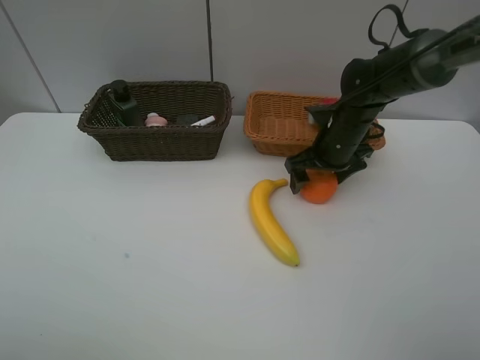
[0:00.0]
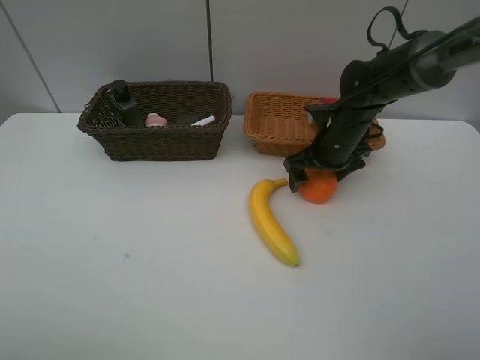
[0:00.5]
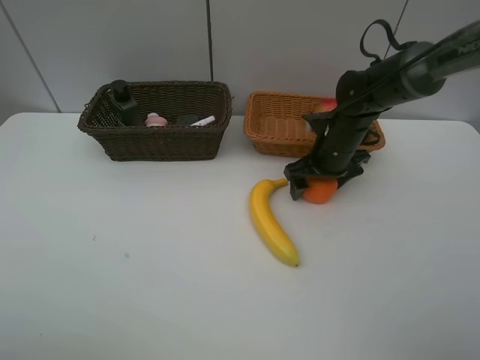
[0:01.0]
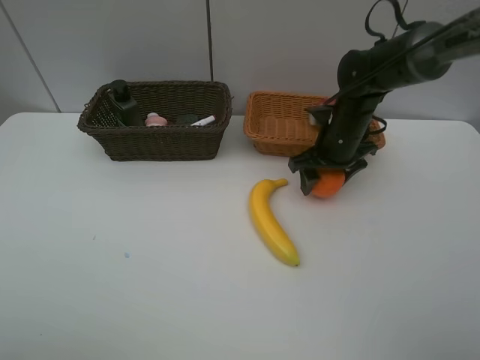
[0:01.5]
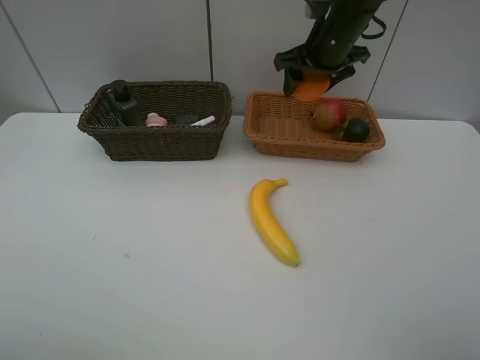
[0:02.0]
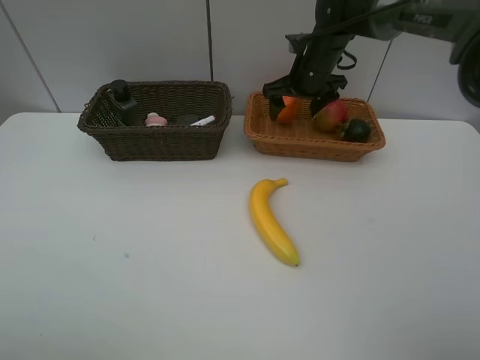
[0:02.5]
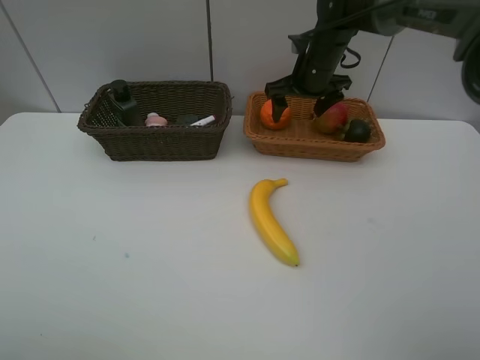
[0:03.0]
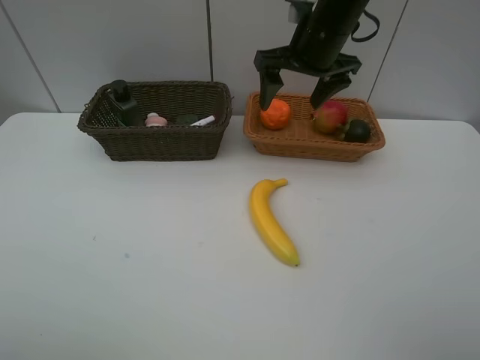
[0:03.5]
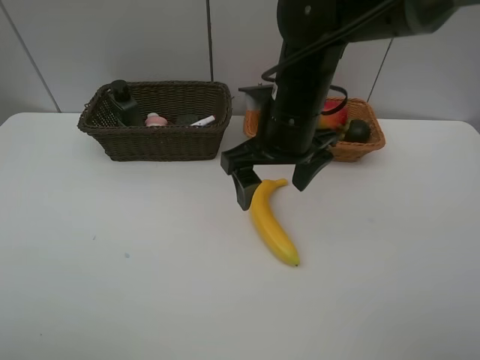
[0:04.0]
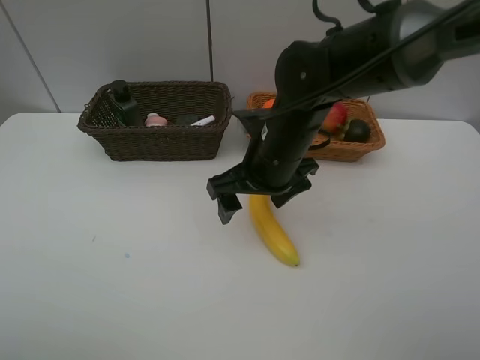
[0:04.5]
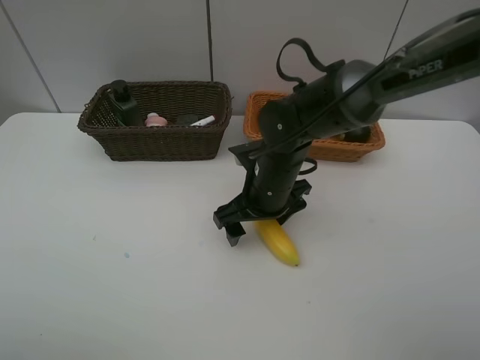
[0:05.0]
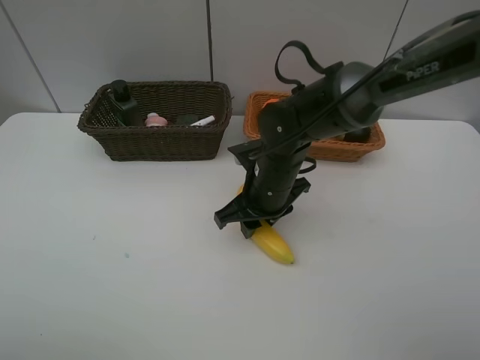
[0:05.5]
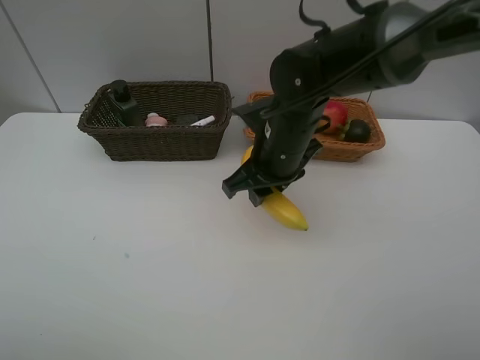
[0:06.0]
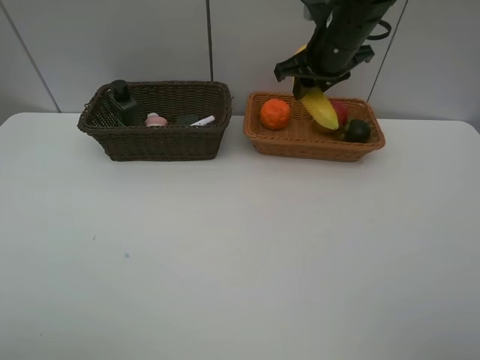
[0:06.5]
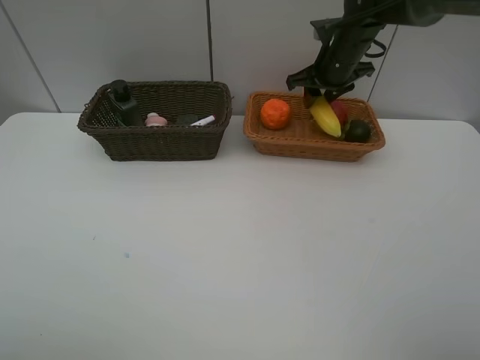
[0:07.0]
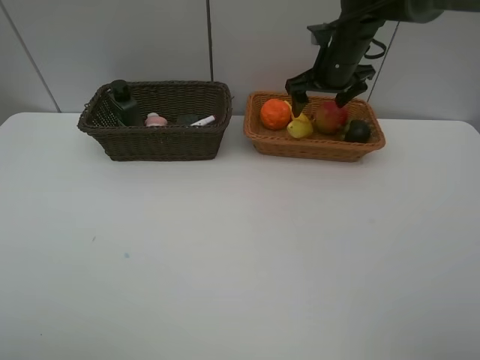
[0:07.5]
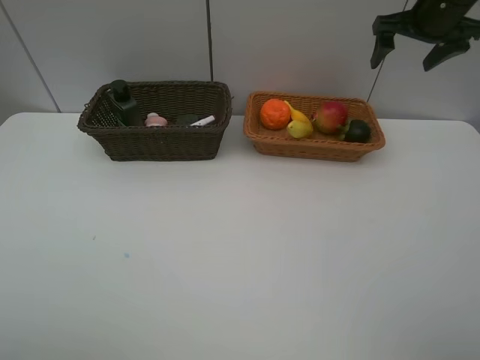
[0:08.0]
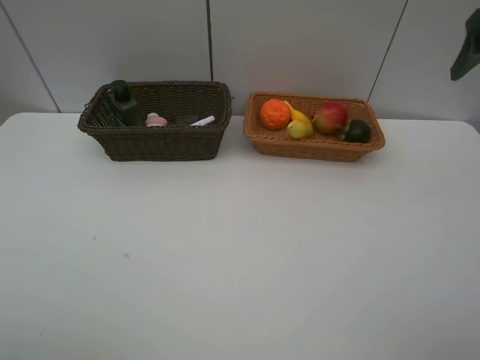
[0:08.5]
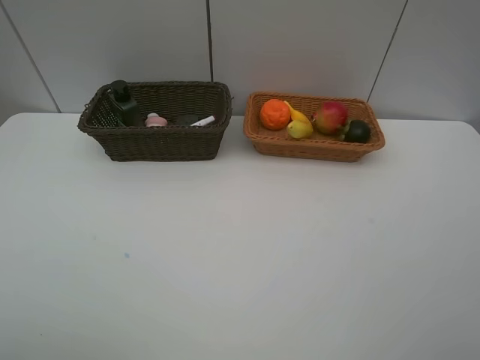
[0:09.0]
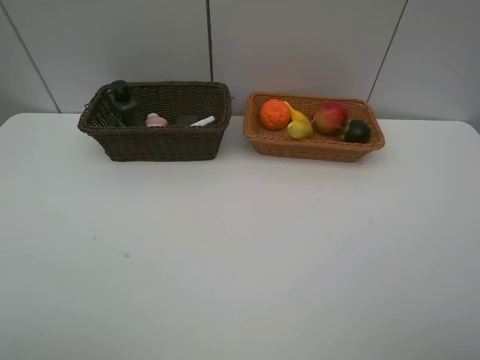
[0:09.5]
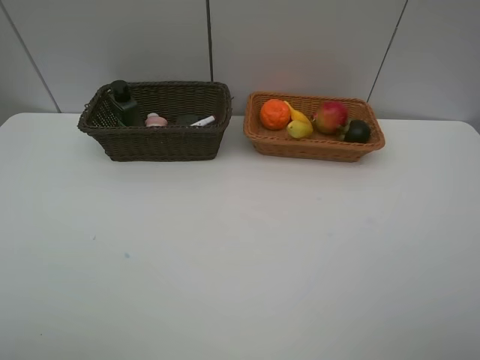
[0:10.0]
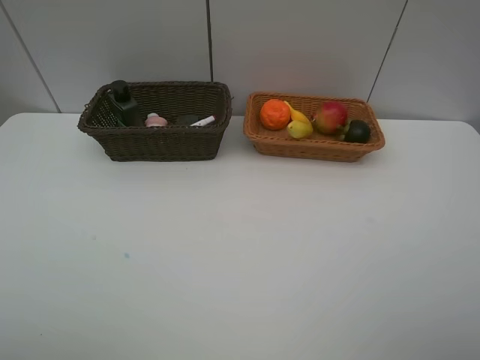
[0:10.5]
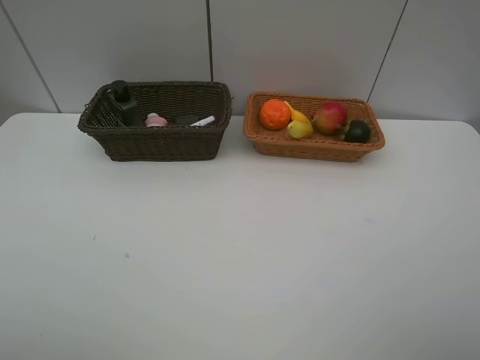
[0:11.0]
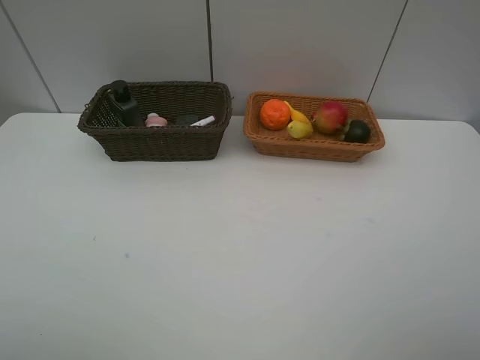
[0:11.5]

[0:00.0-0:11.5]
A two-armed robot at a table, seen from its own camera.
Task of the whole recording: Place multiple objects separately in different baskets.
Step, 0:02.0 to 0:02.5: Place the orange in the light basket with right gripper.
Step, 0:03.0 to 0:06.0: Pick up banana with right gripper.
Step, 0:06.5 to 0:07.0: Place the banana in the light basket with right gripper.
0:00.0 to 0:02.0: The right gripper heads upward and forward, covering about 15 cm, and closes.
0:02.0 to 0:04.0: The right gripper is displaced backward and to the left by approximately 20 cm, and opens its fingers.
0:04.0 to 0:06.0: The right gripper reaches approximately 10 cm downward, then returns, and closes.
0:06.0 to 0:07.5: The right gripper is displaced forward and to the right by about 20 cm, and opens up.
0:07.5 to 0:09.5: The right gripper goes about 50 cm backward.
0:09.5 to 0:11.5: The two grippers keep their place.
